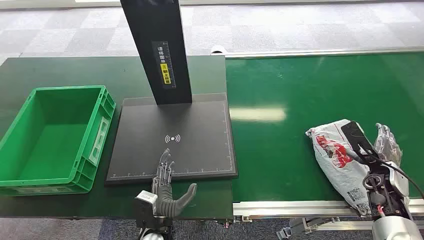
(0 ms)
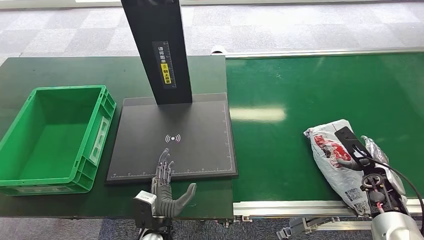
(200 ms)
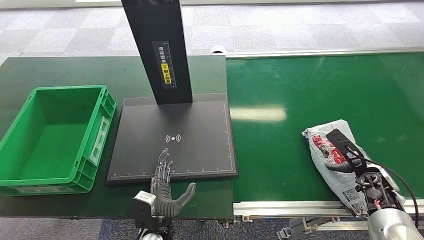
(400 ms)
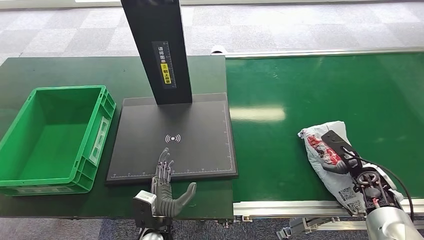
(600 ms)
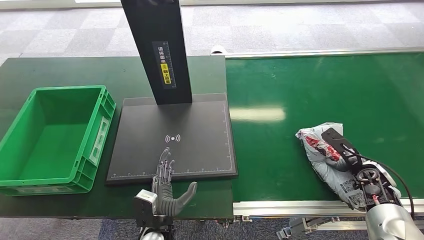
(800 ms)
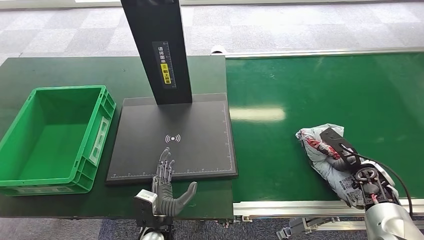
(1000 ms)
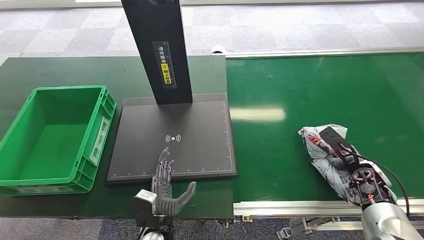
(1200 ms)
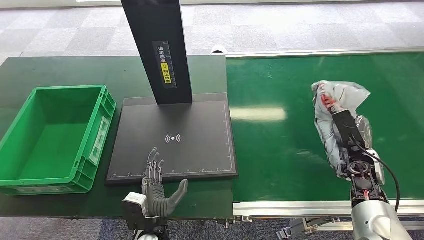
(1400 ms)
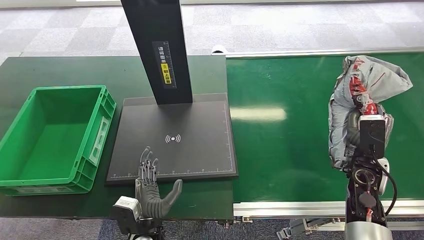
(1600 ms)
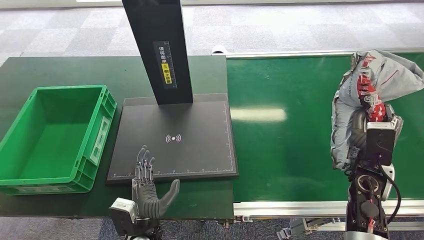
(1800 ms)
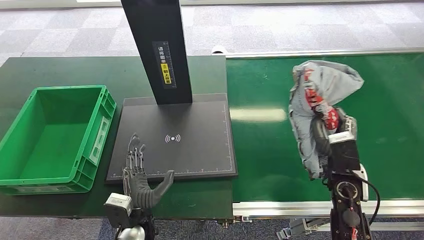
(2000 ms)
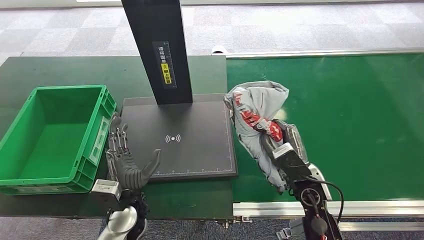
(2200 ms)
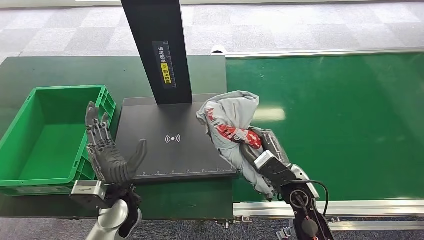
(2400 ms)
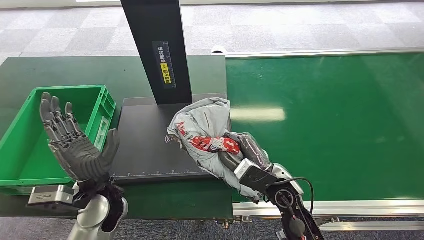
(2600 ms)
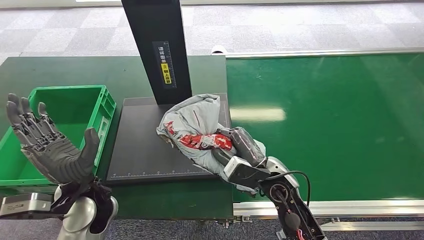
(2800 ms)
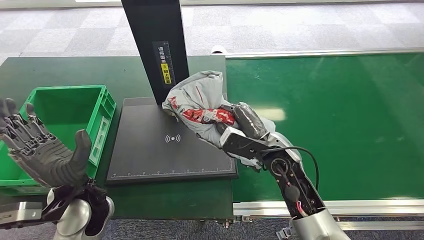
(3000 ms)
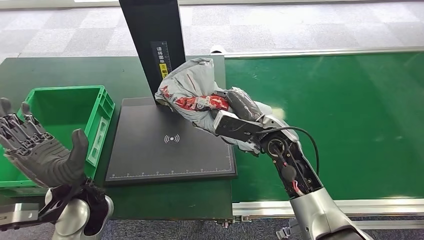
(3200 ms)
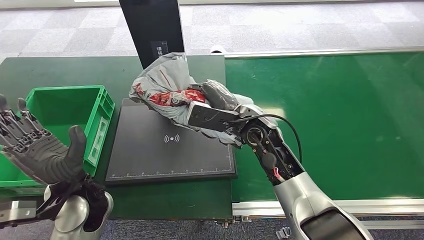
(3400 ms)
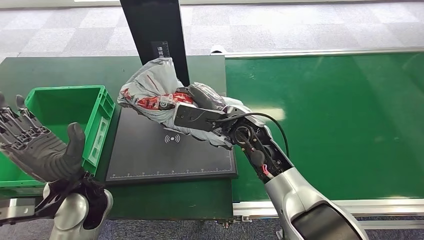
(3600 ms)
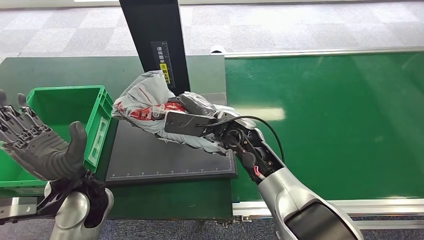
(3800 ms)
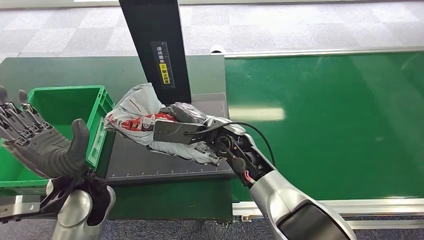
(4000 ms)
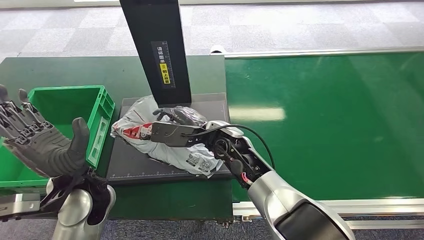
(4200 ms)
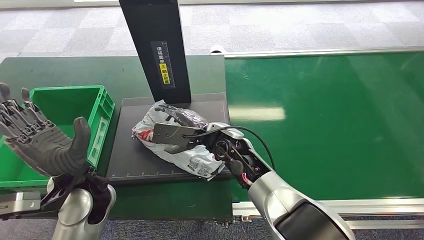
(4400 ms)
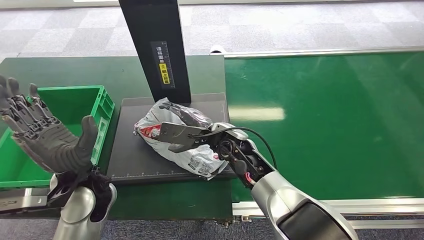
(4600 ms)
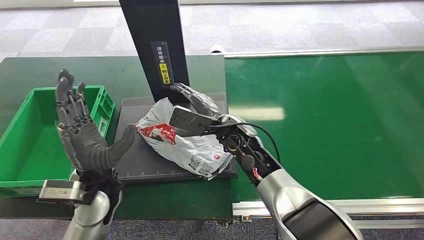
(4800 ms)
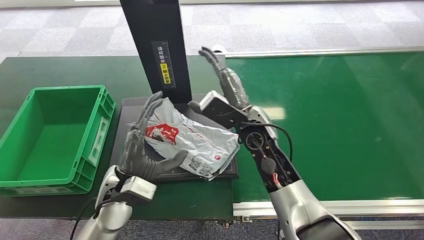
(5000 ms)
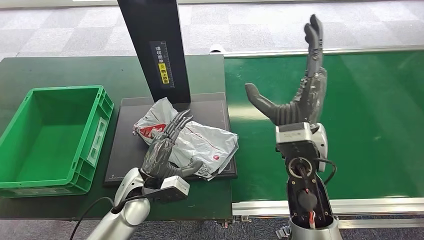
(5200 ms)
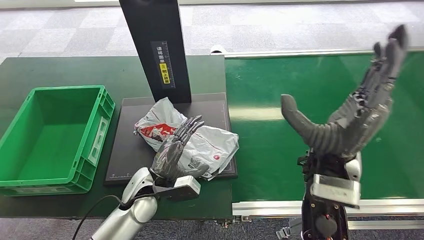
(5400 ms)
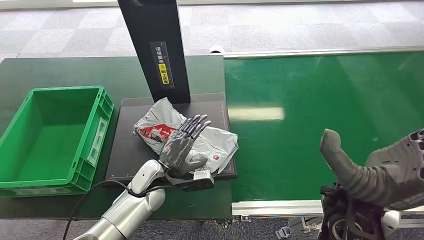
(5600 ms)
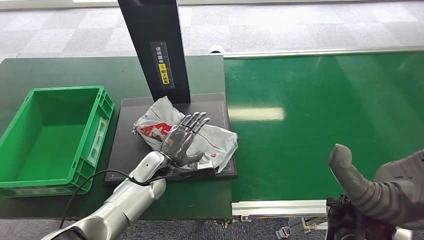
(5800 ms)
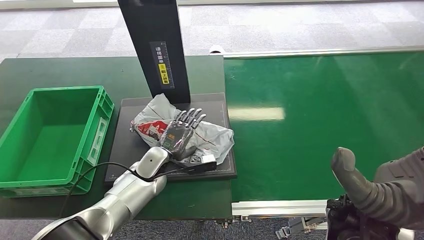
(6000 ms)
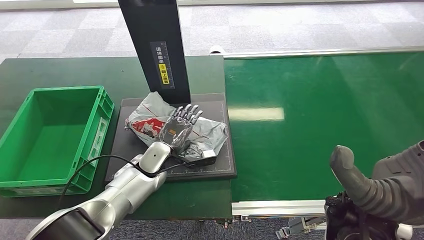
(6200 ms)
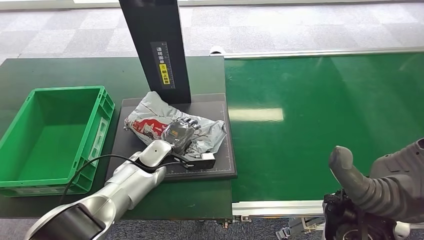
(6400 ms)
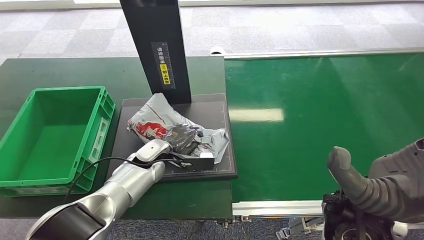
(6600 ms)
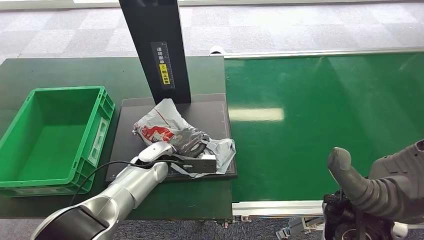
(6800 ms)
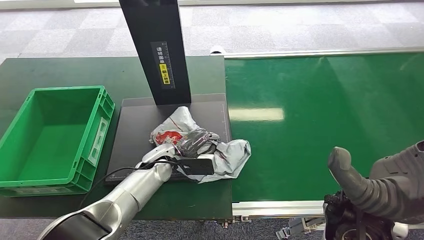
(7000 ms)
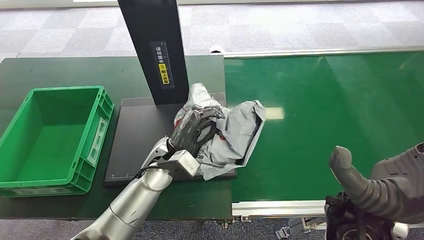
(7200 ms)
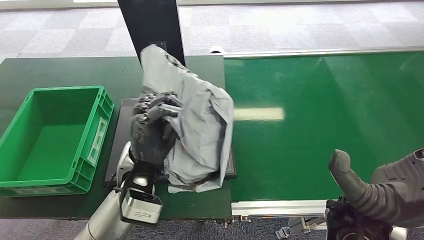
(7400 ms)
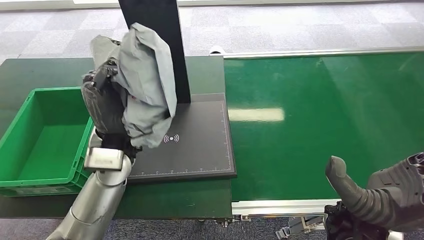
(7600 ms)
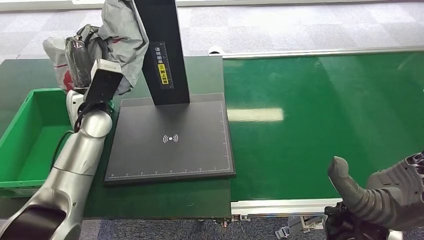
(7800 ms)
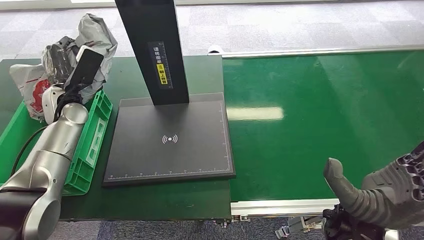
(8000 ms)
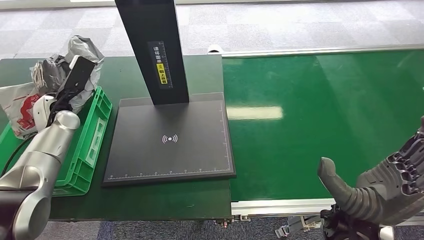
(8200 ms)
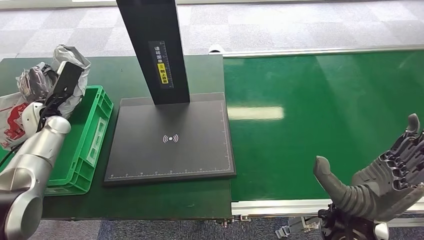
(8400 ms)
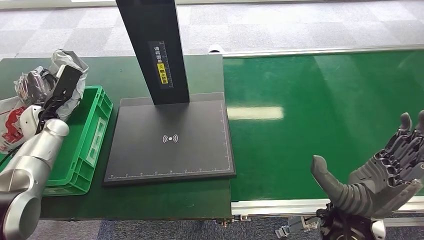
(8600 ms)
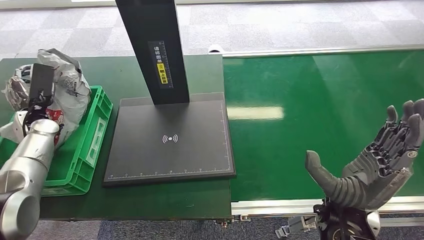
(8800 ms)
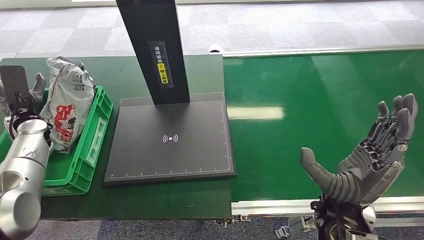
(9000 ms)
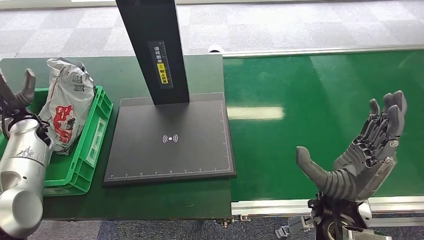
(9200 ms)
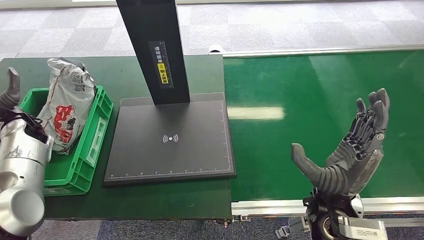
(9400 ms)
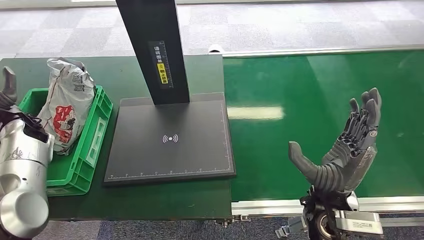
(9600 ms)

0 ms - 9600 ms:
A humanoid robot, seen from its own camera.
Step, 0 ms - 1400 ms: Pick up the package from the conveyor belt.
Step, 1600 ms - 5000 ms: Place the package onto the inbound machine.
Step, 5200 ms - 7400 ms: Pick up the package from the inbound machine.
Step, 7600 ms - 9400 ms: Place the package into the parcel locker.

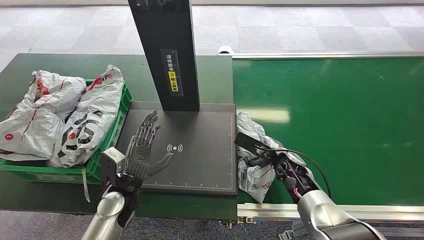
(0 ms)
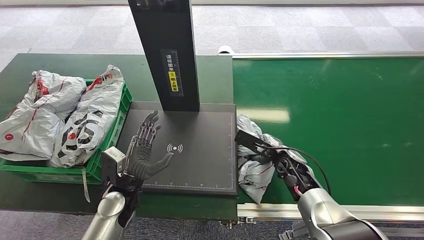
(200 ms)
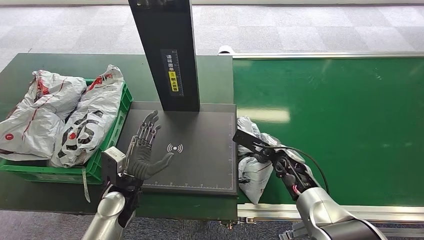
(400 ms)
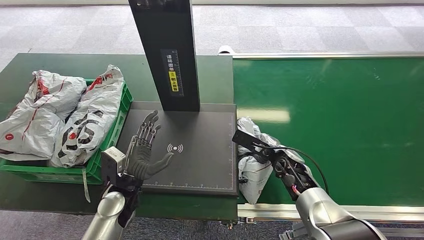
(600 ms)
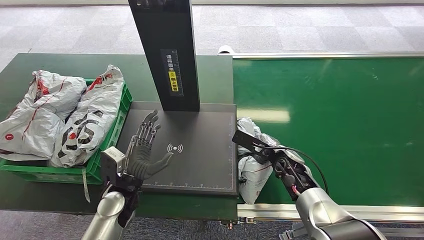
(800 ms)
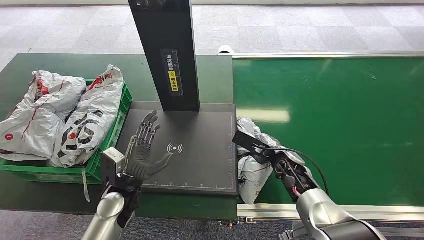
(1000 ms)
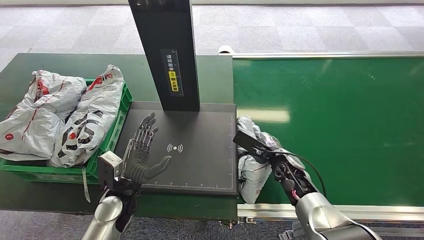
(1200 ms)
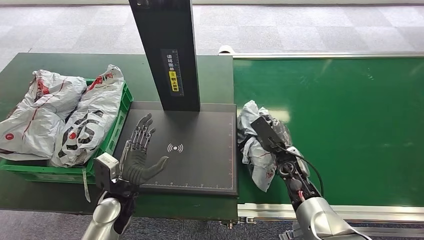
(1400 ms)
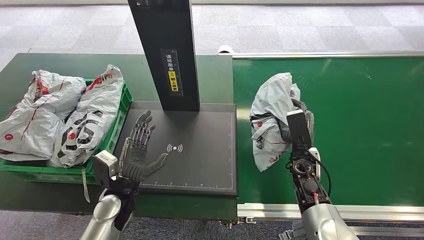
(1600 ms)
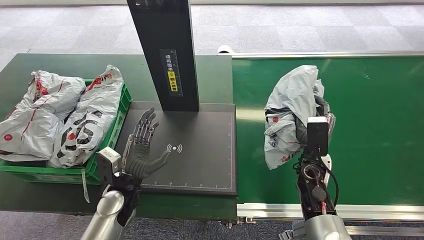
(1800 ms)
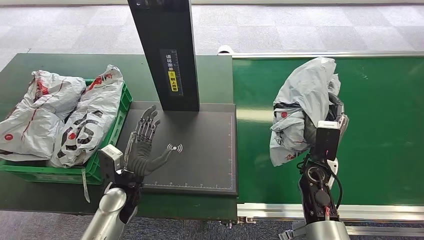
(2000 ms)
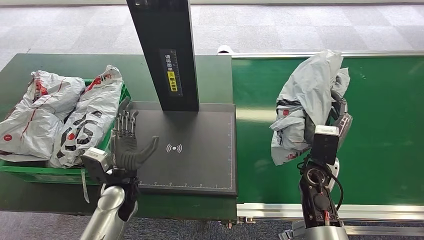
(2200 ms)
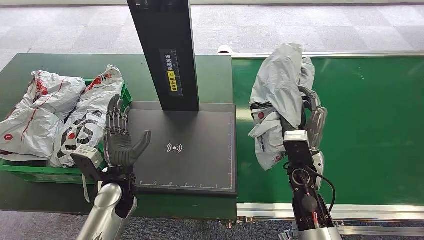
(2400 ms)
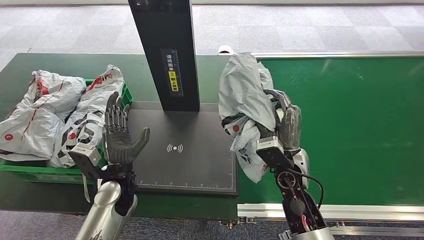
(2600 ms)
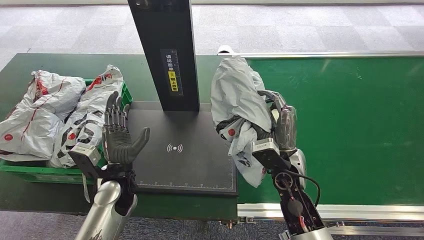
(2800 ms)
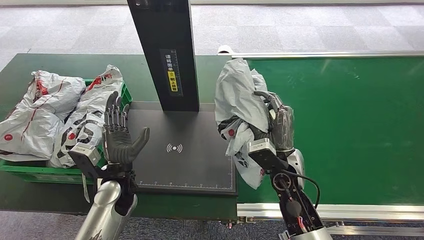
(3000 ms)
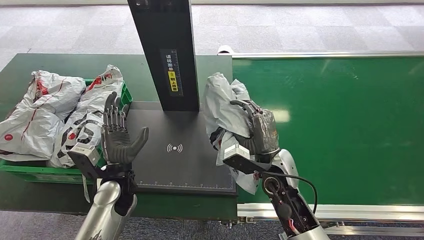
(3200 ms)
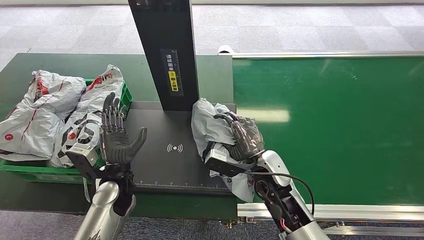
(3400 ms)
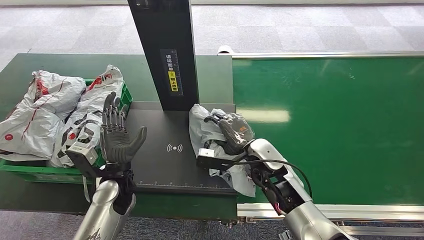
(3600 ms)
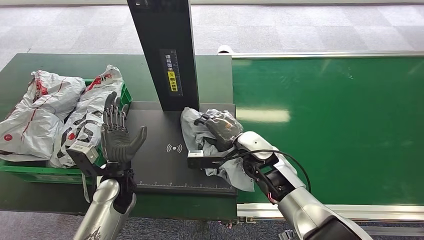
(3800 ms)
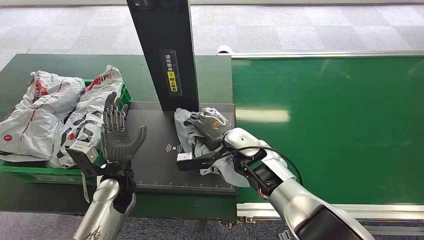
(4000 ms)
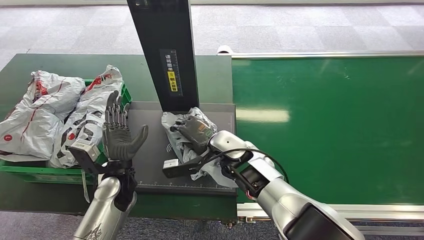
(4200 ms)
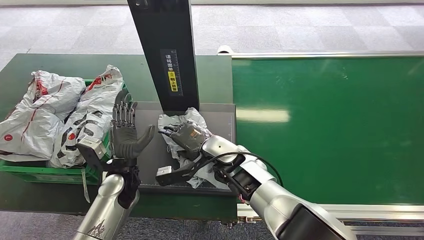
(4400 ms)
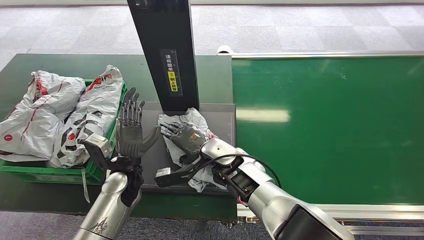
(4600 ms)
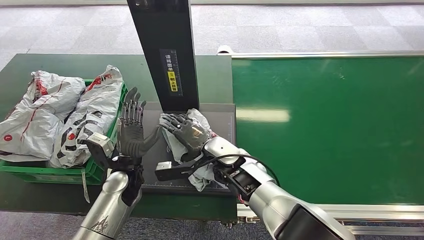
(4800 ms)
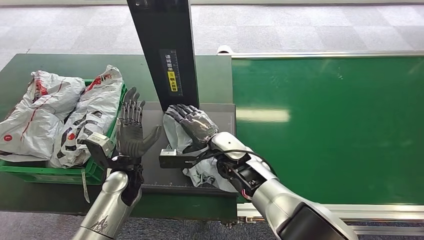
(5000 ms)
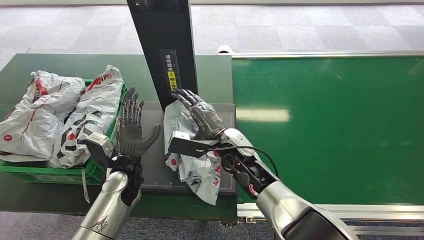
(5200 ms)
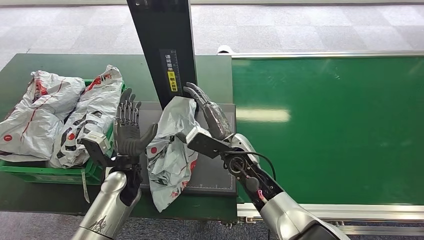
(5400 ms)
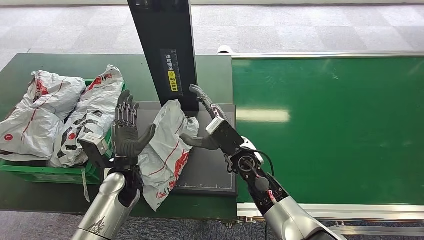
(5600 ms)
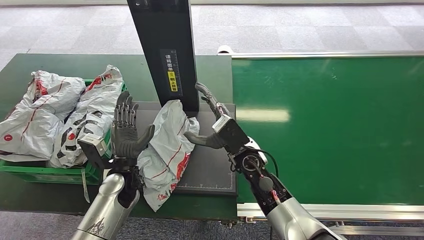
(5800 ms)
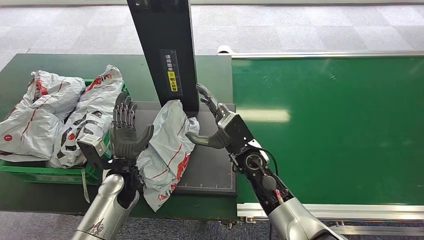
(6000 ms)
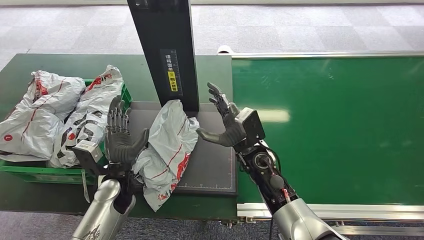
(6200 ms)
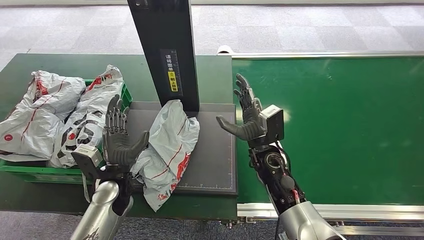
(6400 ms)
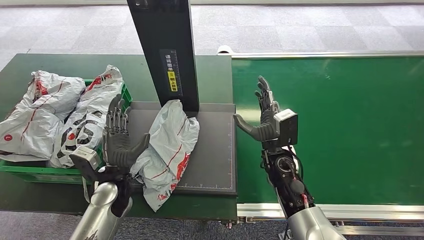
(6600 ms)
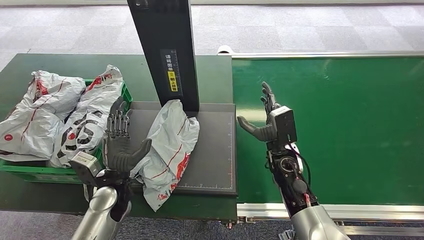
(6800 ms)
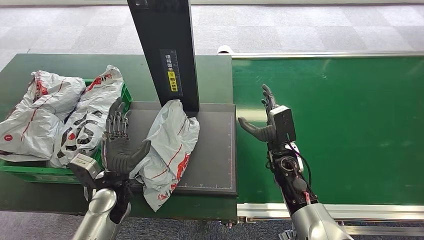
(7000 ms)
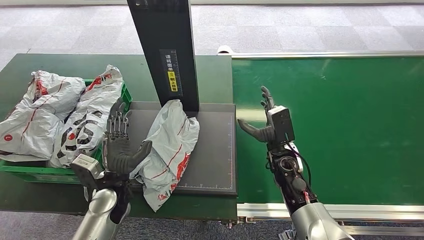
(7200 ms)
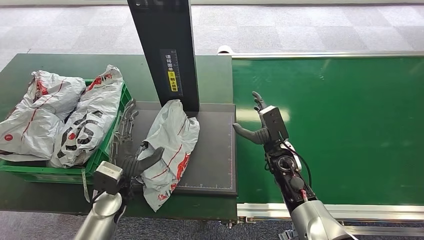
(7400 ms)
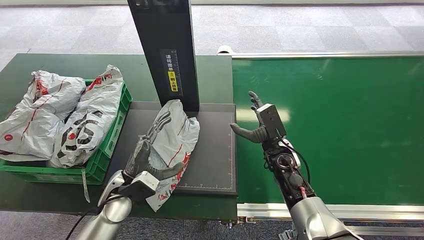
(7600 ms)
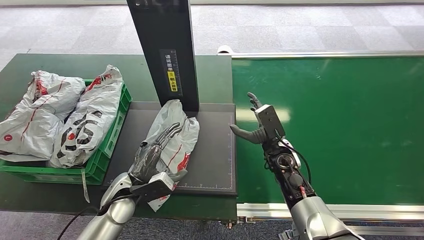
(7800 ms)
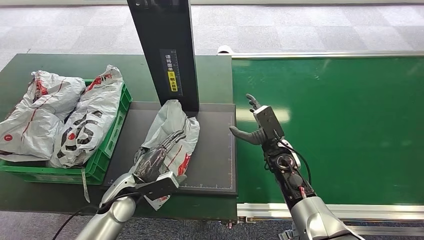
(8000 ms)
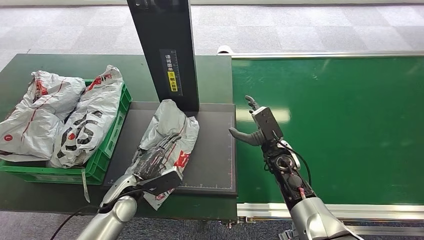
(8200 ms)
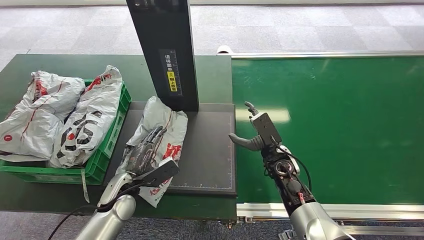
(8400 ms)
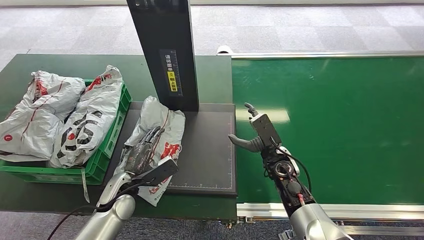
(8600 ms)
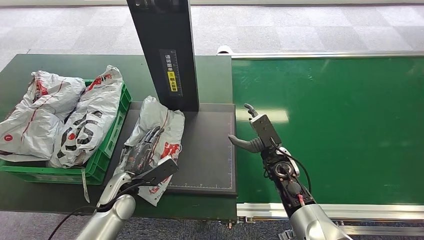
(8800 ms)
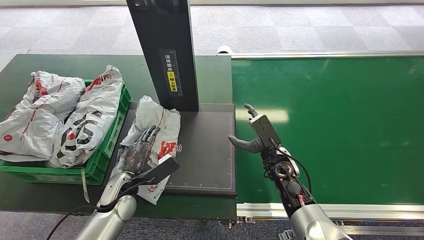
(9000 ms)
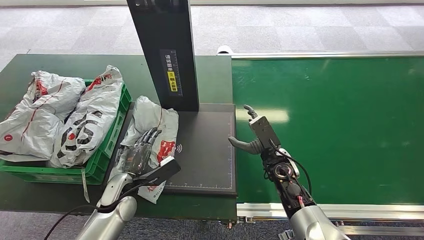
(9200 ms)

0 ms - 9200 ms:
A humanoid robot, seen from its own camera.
Step, 0 ms - 1800 ms: Pick up the package from the conveyor belt.
Step, 2000 ms - 6800 ms: Place the package onto the inbound machine.
1600 ms - 3000 ms: The right hand heads to the left and upward, covering roughly 10 cm.
3000 ms - 4600 ms: The right hand is displaced to the left by roughly 15 cm.
4600 ms - 6200 ms: The right hand shifts roughly 5 cm to the right.
6200 ms - 7600 ms: The right hand goes approximately 10 cm to the right.
7600 ms - 9200 ms: The left hand ends up some 5 cm from where it was.
